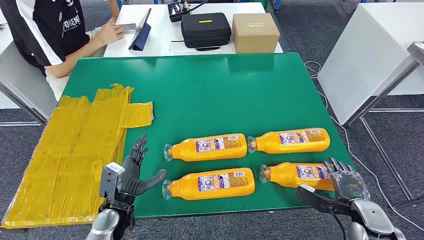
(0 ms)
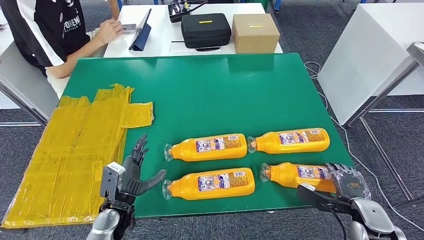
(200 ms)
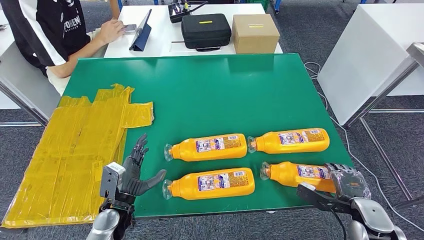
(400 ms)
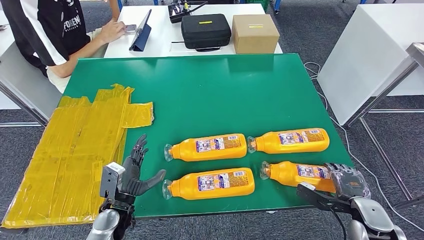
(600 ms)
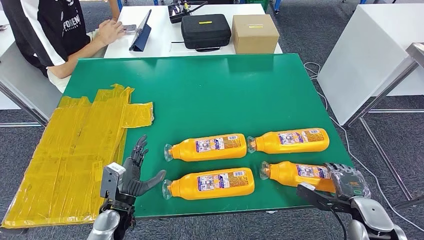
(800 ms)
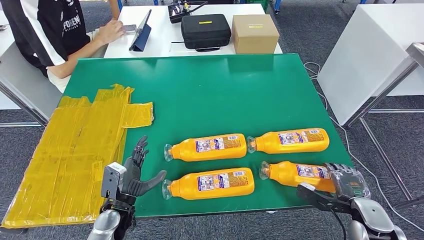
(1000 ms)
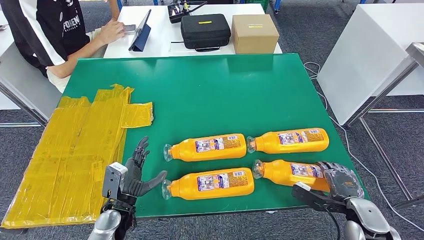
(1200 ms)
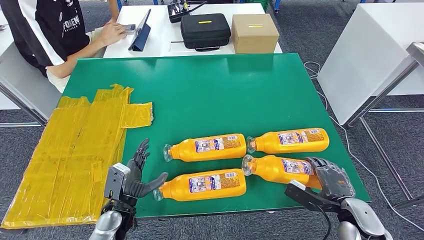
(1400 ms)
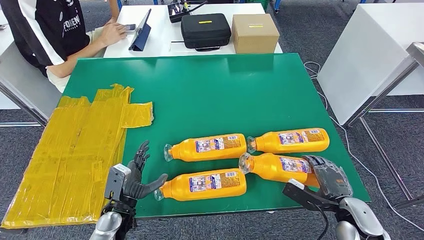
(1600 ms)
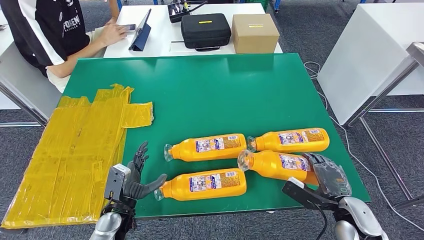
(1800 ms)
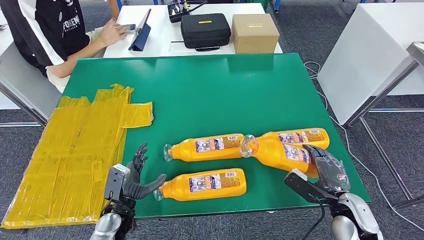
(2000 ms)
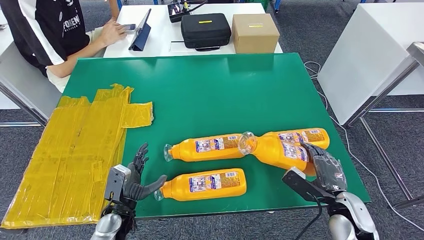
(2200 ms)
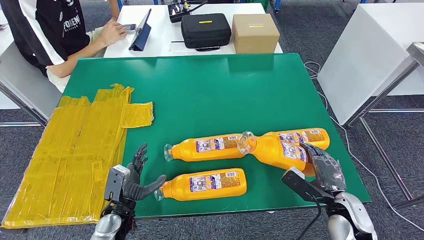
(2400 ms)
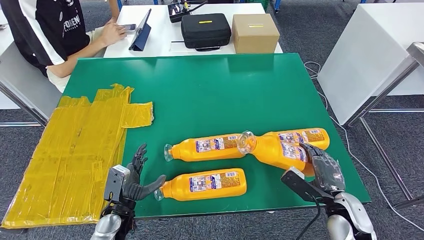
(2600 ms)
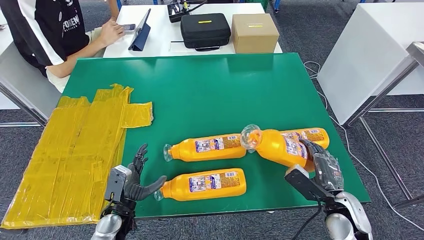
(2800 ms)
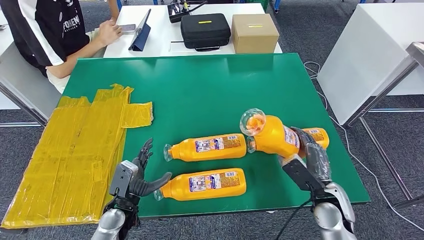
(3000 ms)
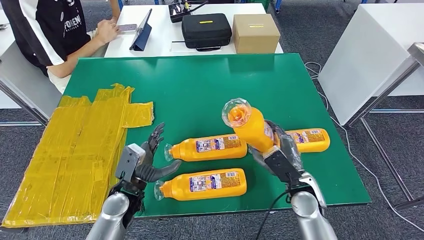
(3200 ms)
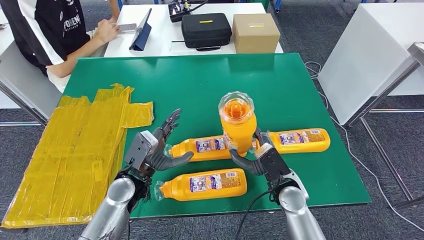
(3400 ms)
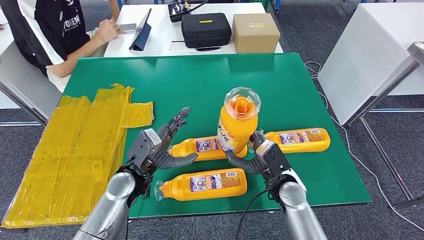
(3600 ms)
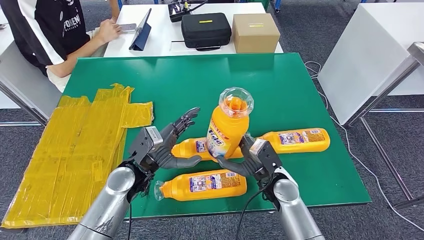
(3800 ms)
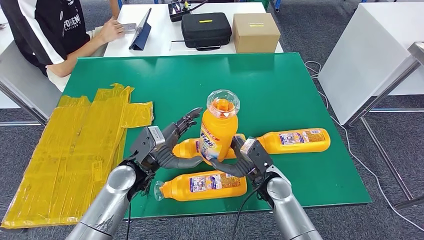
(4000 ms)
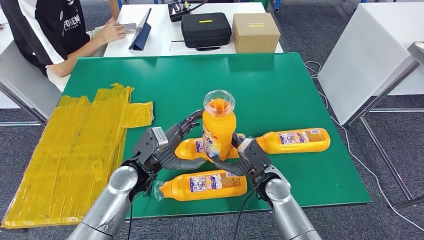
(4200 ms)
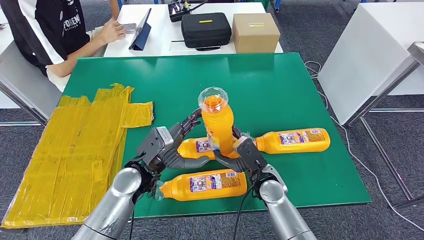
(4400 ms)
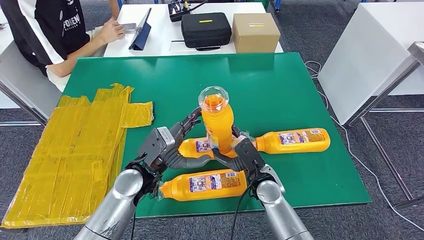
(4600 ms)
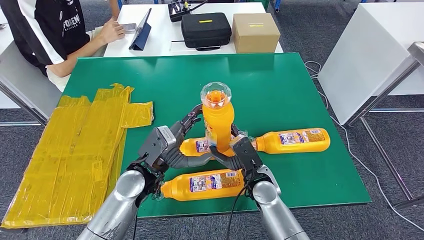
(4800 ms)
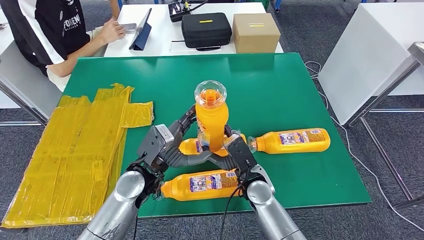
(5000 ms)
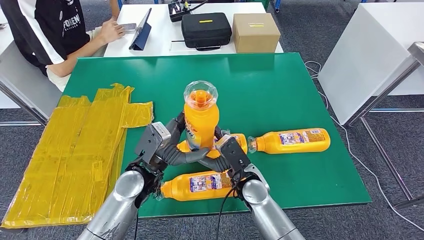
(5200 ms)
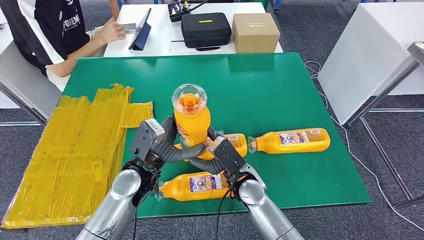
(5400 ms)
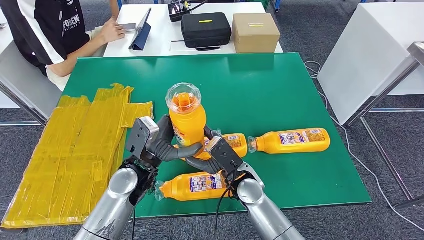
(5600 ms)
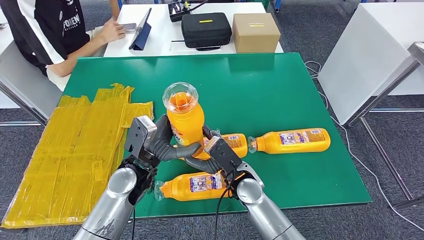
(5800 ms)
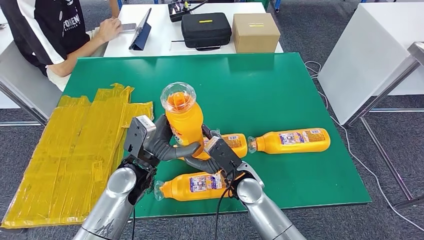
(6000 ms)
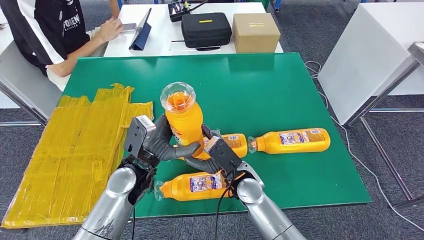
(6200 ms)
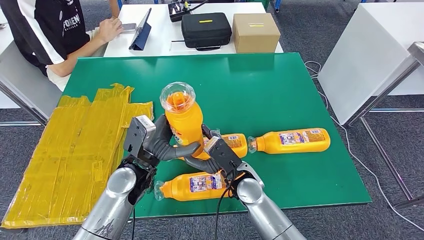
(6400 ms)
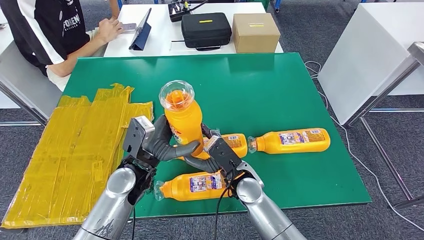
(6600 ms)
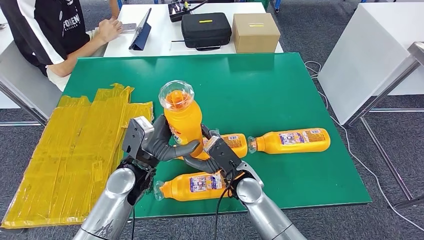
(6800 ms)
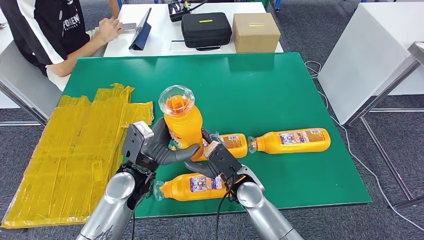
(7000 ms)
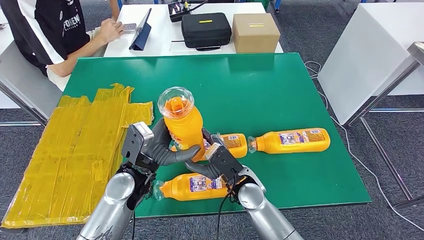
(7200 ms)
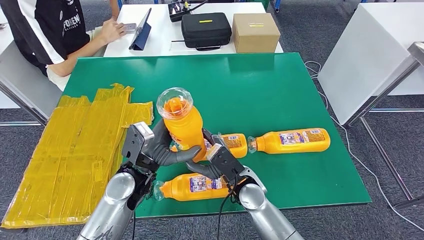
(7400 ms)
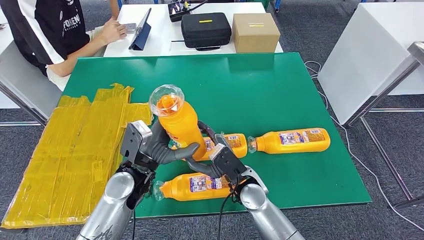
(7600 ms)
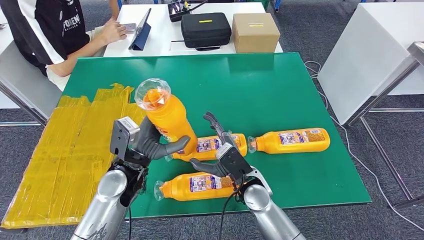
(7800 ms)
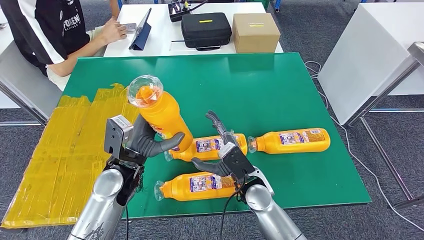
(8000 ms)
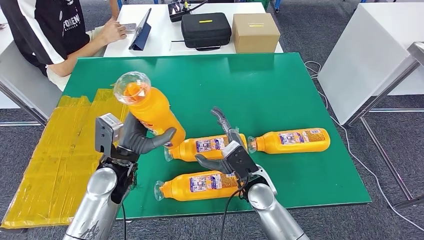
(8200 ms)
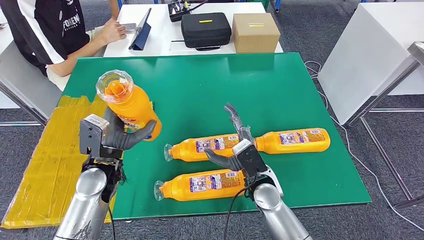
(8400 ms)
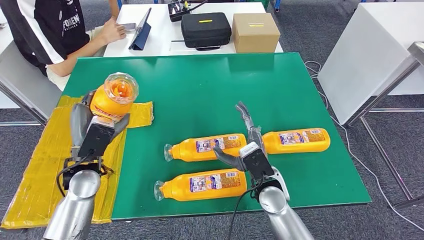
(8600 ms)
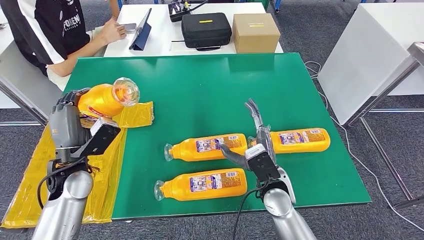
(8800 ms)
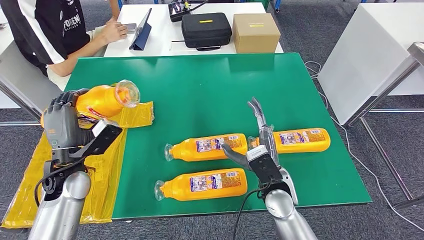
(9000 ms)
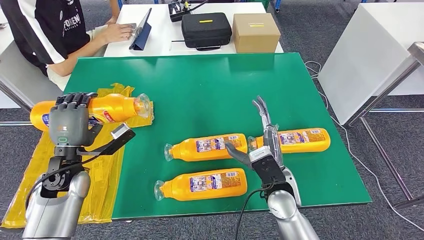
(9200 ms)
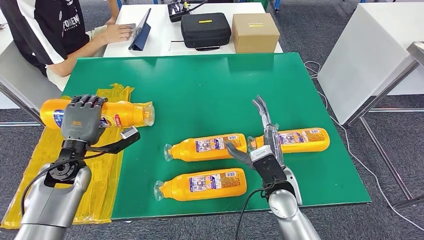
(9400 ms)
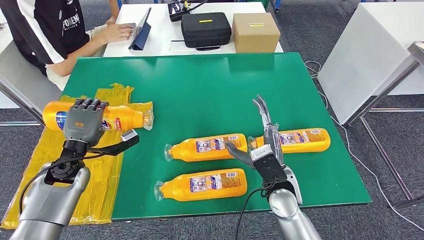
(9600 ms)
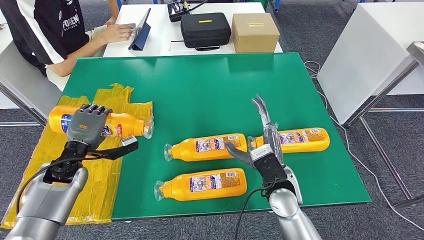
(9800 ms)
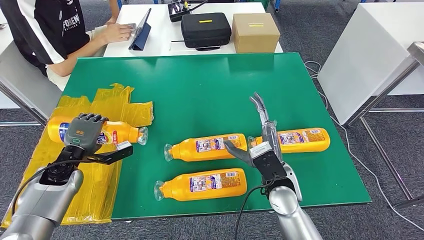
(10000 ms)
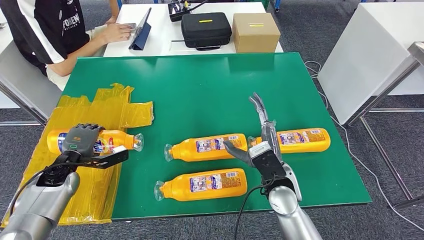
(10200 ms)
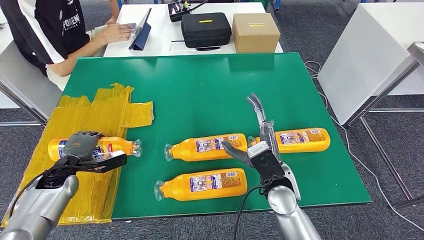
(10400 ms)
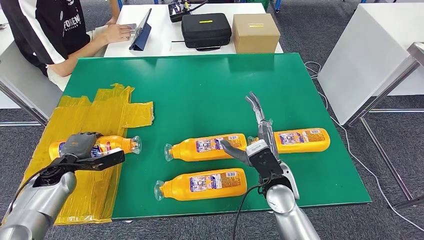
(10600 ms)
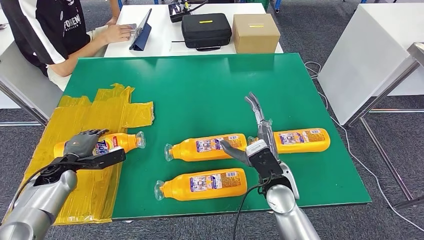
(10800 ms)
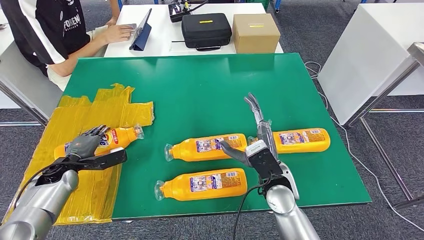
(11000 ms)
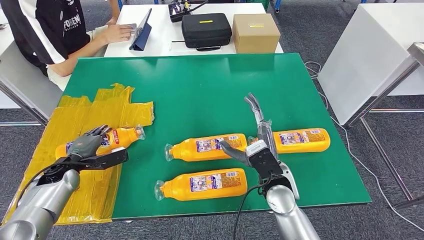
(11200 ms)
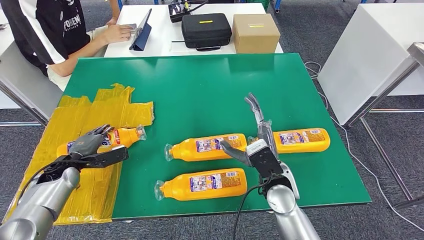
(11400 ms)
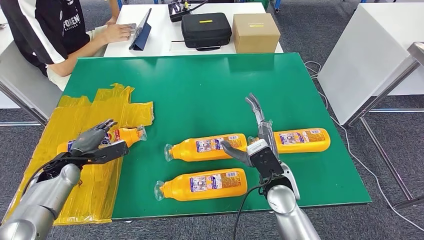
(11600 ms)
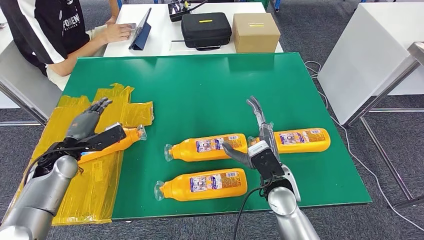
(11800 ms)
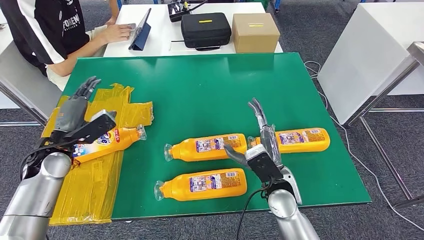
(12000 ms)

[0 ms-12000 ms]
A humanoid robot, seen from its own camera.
Step, 0 ms to 5000 ms: Take the bottle from the table.
Step, 5200 ms to 10800 ms: Flip the bottle to face forward.
1600 ms to 3000 ms: The right hand travels to the left by some 5 cm.
3000 ms to 4400 ms: The left hand heads upward, to the right and forward, covering some 15 cm. Meanwhile the right hand heads to the left and forward, covering roughly 15 cm.
4400 ms to 6000 ms: The right hand heads to the left, covering about 5 cm.
6000 ms to 7600 ms: The hands stay close to where they were, moving slightly.
9000 ms to 10400 ms: The left hand goes approximately 15 cm downward and to the left.
10400 ms to 12000 ms: The left hand travels upward by about 10 cm.

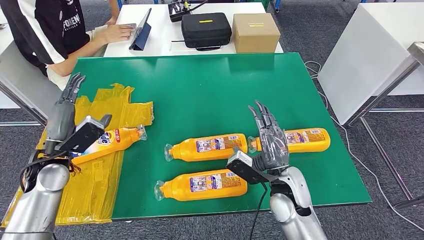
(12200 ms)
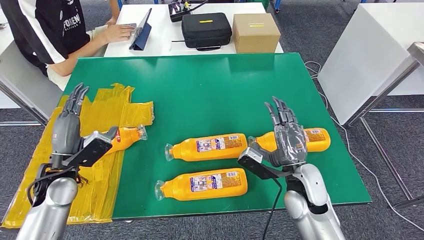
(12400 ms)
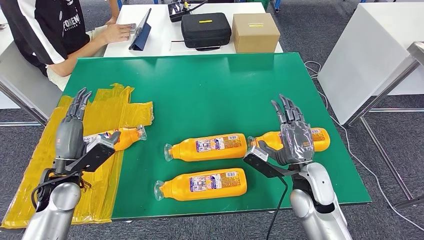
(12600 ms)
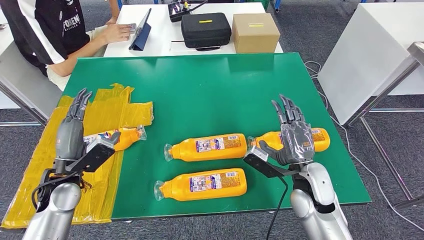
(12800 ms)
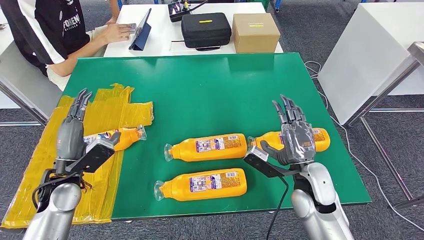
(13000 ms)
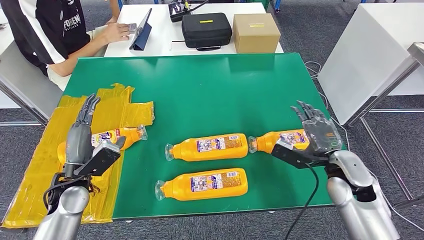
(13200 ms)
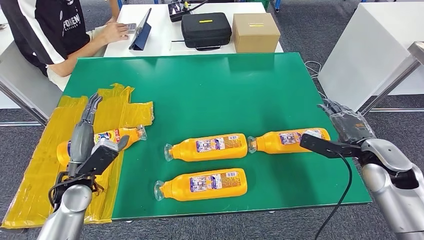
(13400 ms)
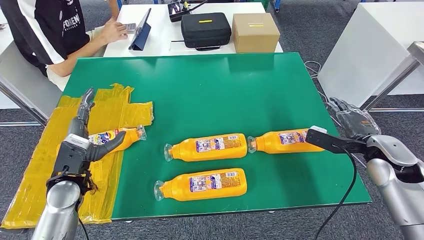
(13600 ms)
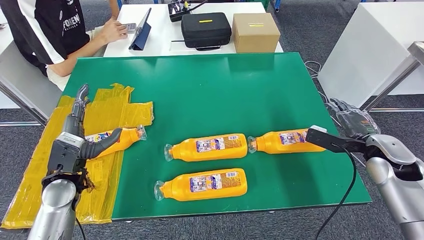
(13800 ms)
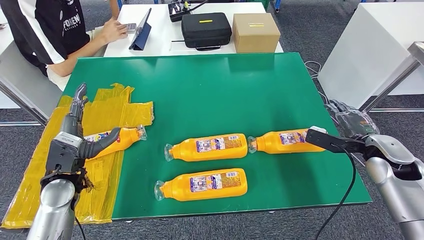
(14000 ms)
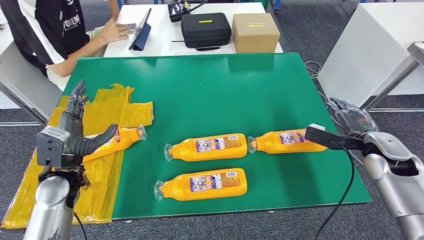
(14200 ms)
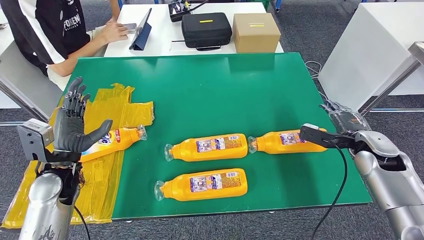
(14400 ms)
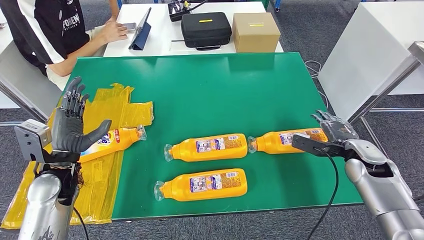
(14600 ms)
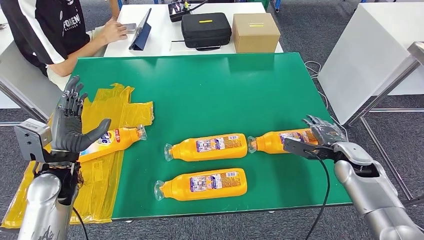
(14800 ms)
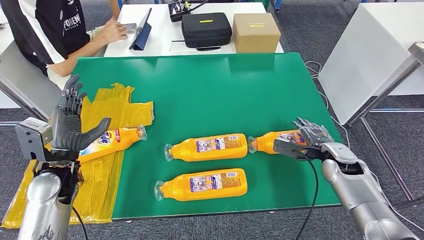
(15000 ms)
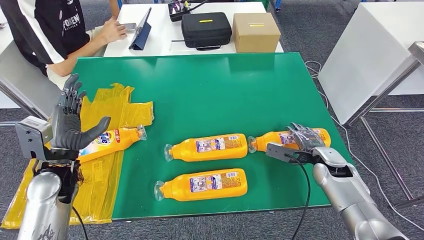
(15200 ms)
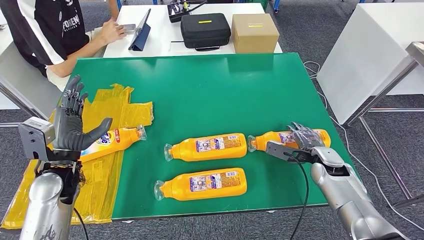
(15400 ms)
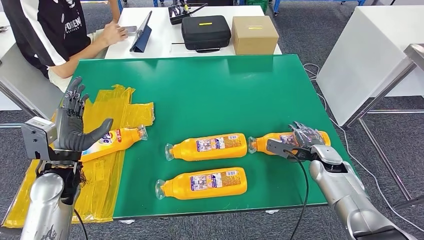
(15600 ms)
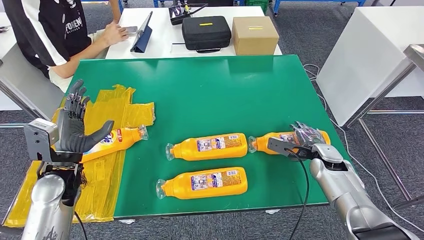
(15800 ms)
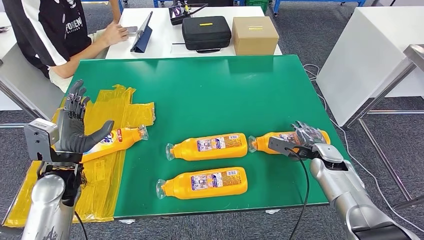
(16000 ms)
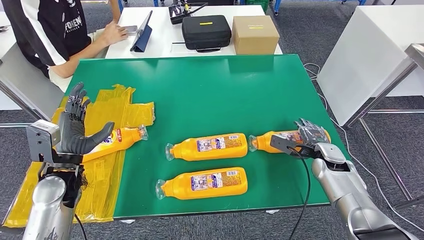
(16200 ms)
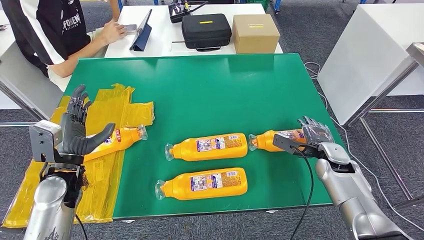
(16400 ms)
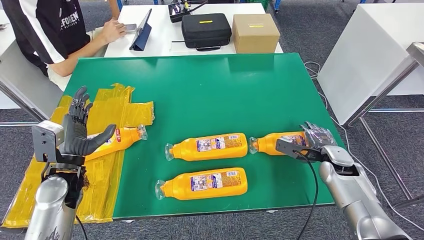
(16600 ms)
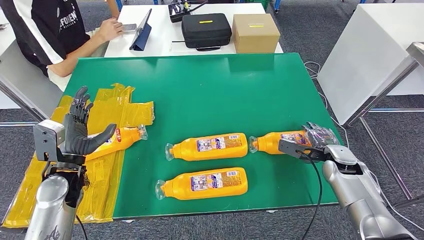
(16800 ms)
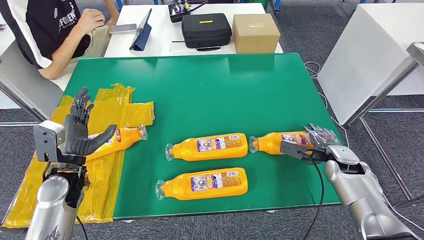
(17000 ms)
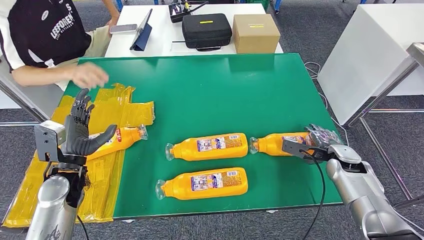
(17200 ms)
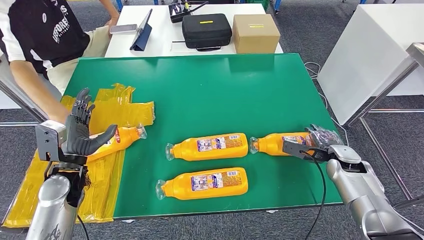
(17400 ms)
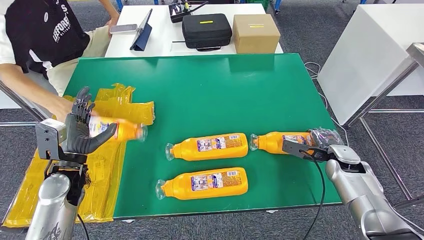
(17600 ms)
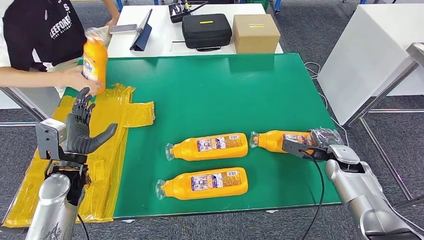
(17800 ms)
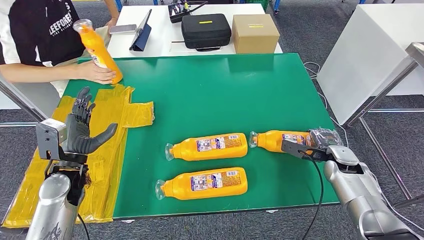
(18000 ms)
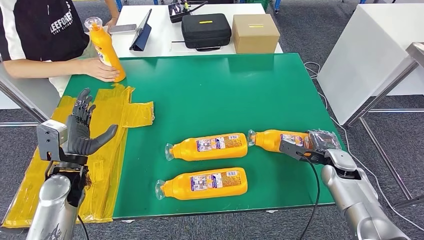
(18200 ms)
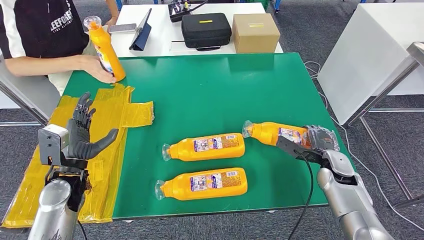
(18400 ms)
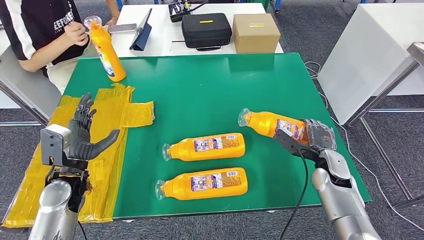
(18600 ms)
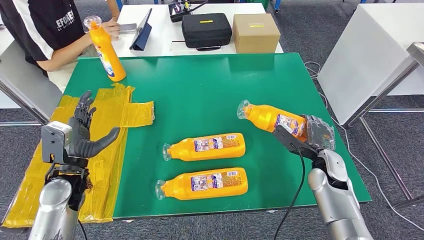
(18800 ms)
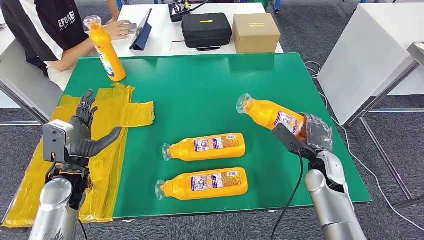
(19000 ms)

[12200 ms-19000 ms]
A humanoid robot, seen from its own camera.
15000 ms to 16200 ms: The hands move only a little.
